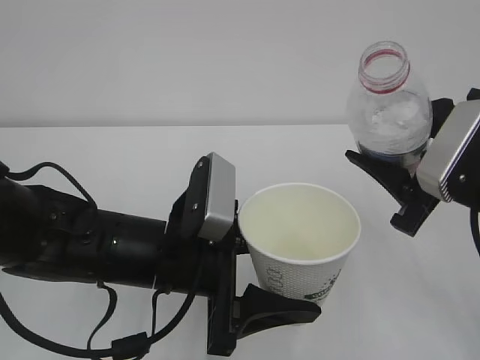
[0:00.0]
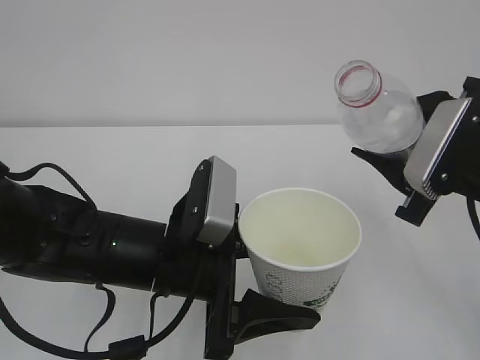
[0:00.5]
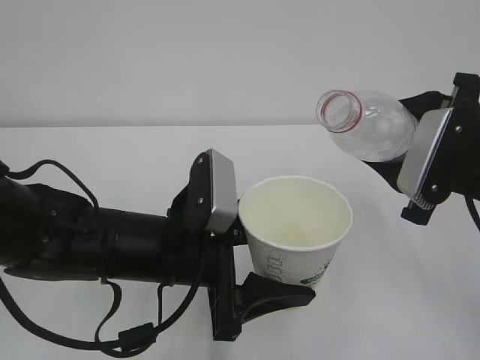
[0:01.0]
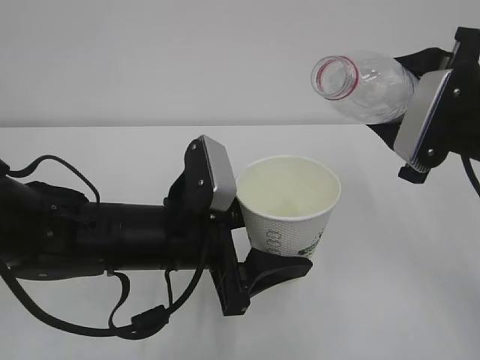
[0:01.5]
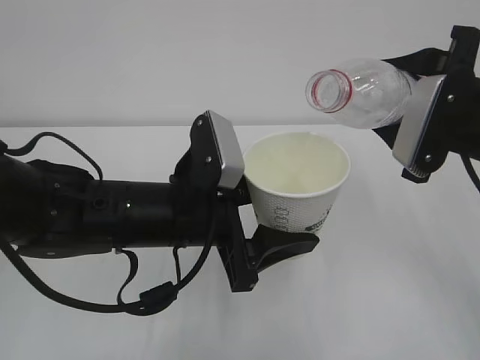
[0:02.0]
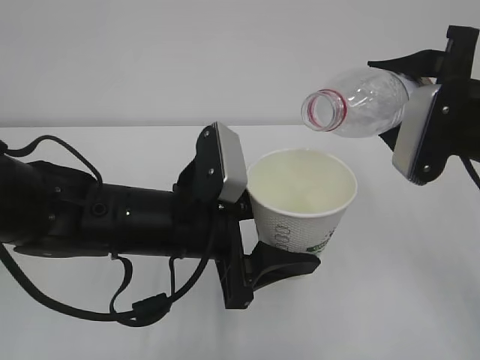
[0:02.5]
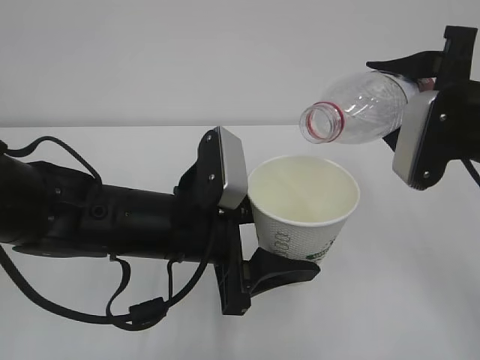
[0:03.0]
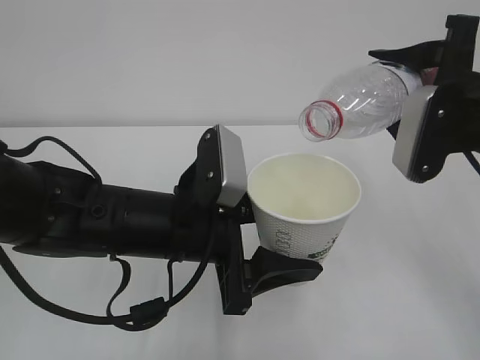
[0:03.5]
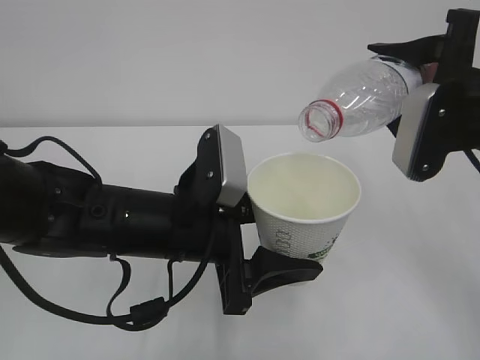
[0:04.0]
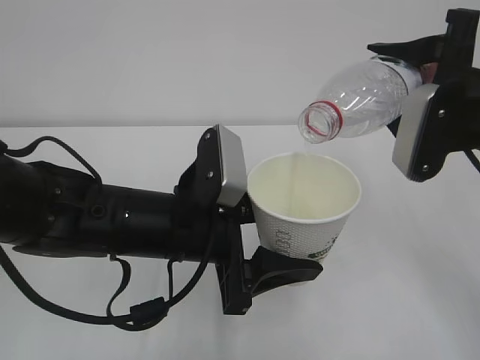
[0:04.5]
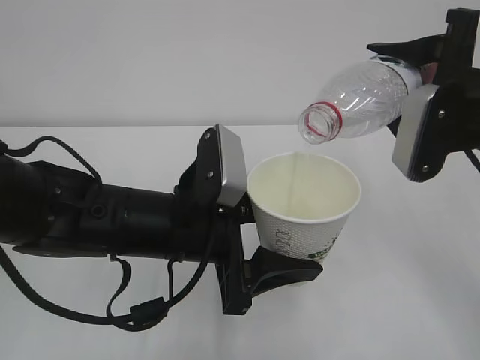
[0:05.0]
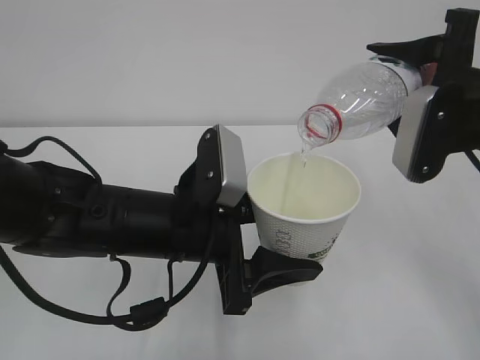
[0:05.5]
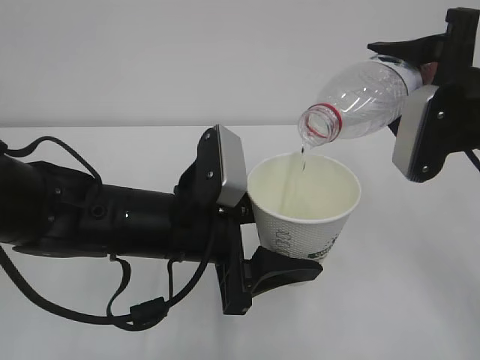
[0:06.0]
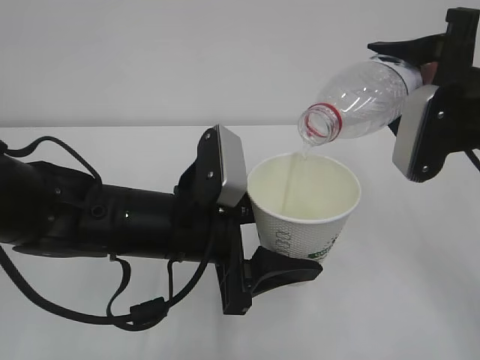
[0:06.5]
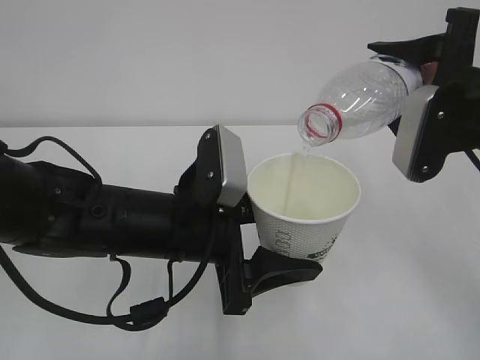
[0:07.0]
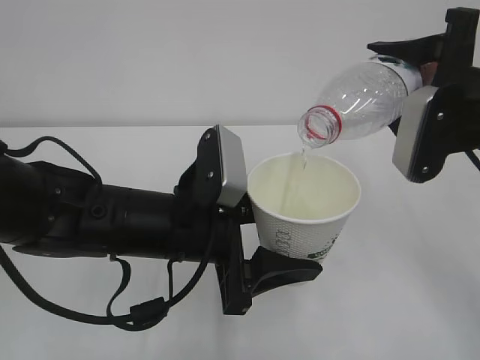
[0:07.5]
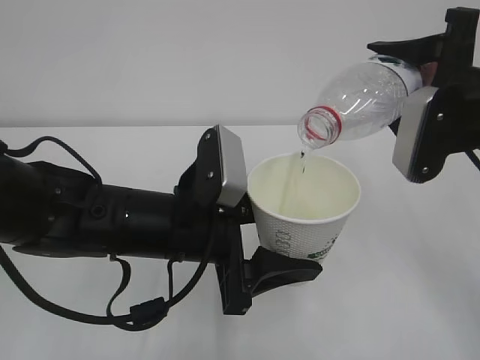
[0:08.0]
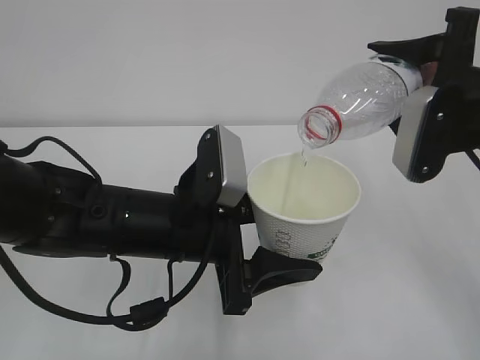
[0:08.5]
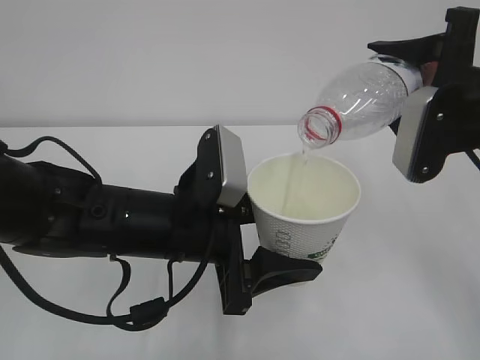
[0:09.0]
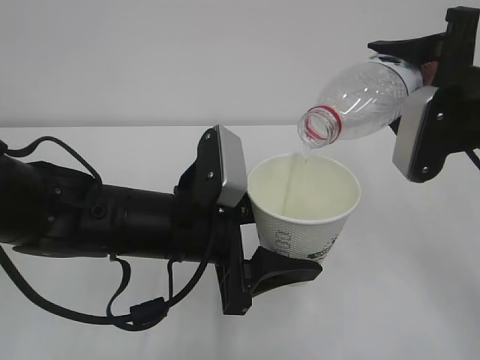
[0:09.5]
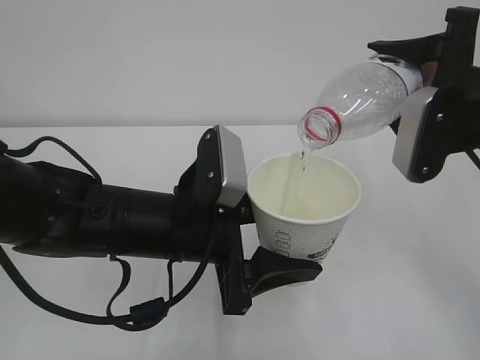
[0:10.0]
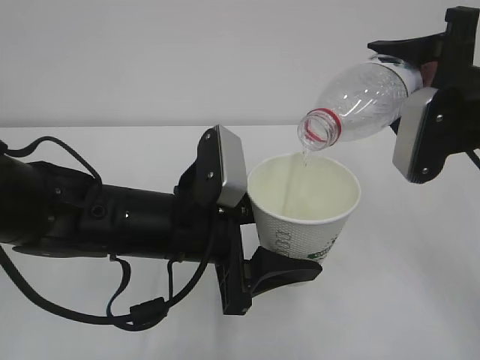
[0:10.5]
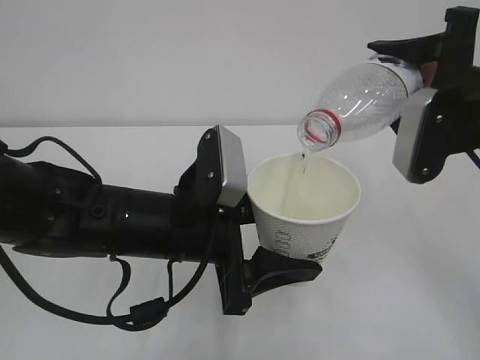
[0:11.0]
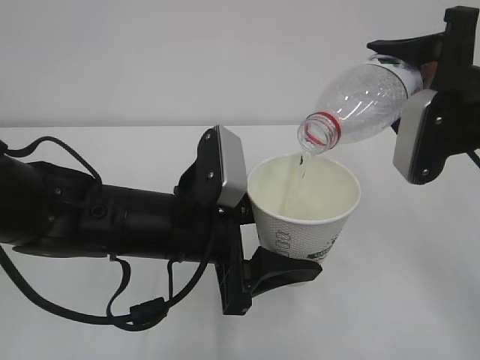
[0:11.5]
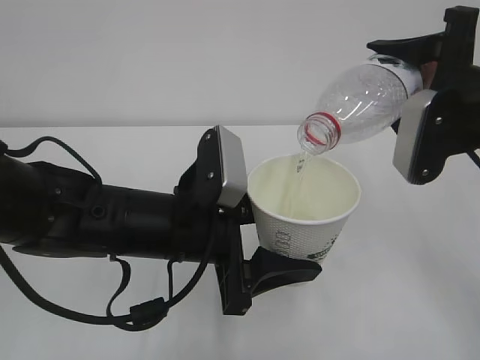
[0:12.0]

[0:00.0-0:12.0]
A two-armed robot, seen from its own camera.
0:00.0 to 0:02.0: The right gripper changes place by approximately 5 cm.
0:02.0 to 0:04.0: The grippers move only a little.
0:04.0 to 0:10.0: Both grippers stay put.
0:10.0 to 0:12.0: Both grippers stay put.

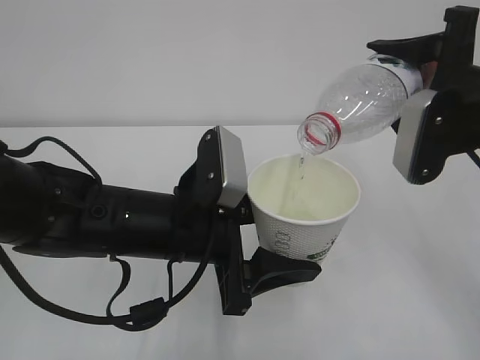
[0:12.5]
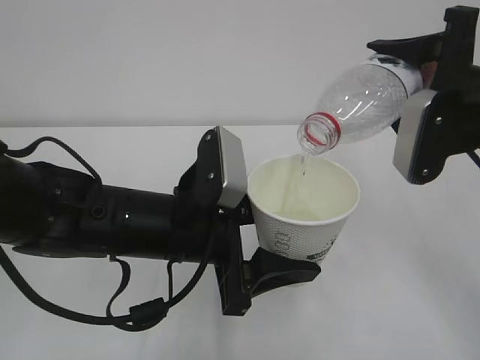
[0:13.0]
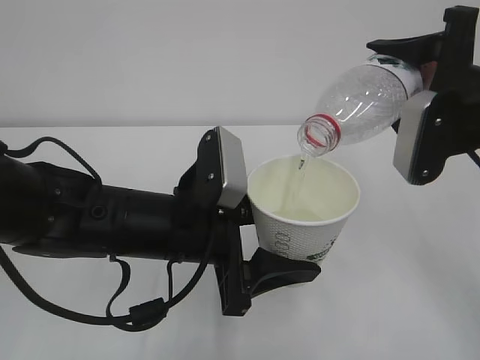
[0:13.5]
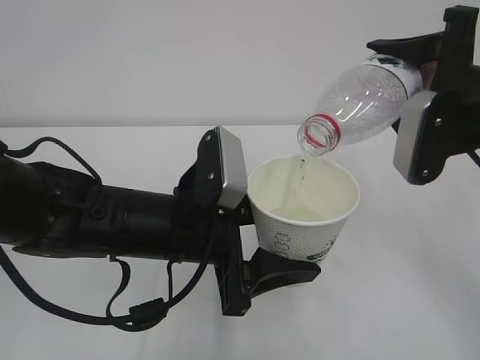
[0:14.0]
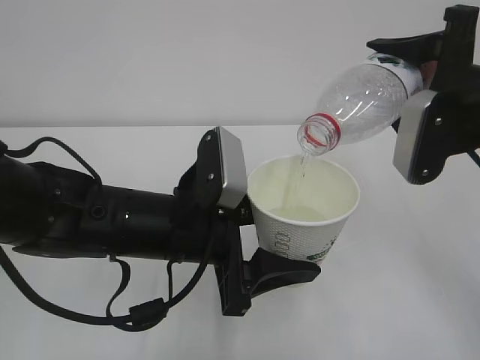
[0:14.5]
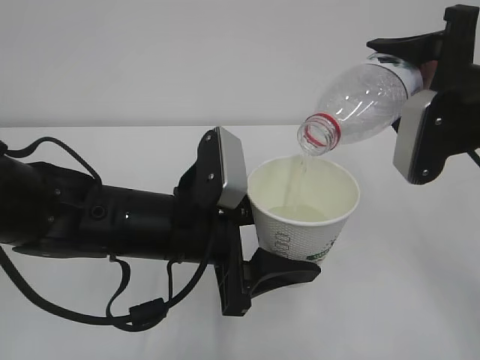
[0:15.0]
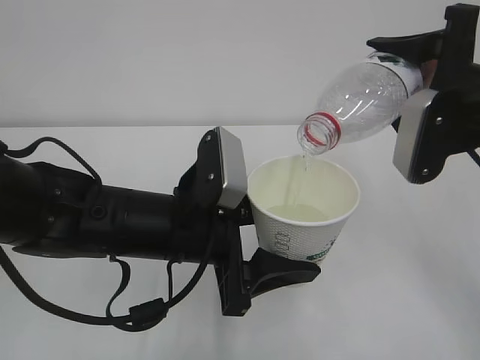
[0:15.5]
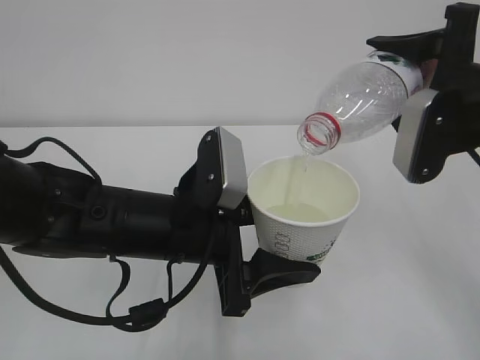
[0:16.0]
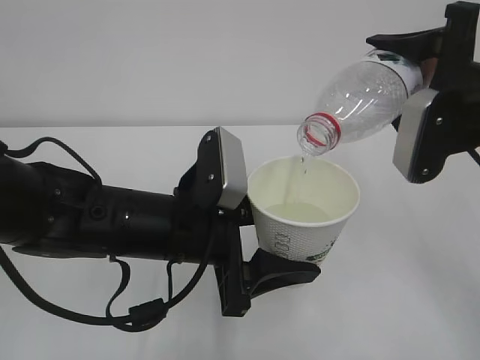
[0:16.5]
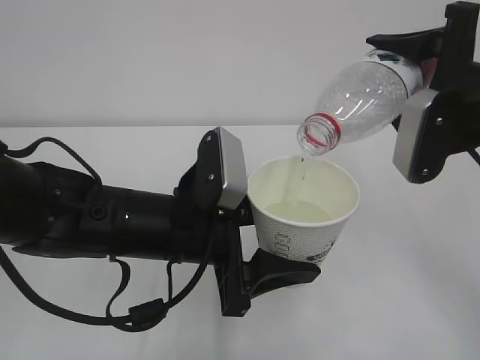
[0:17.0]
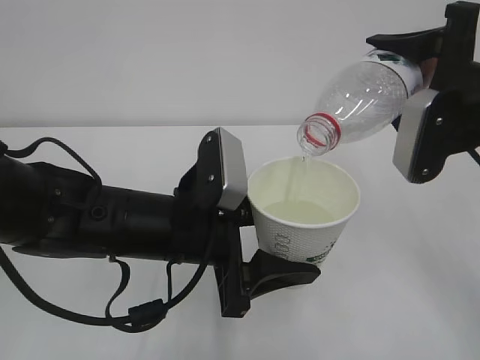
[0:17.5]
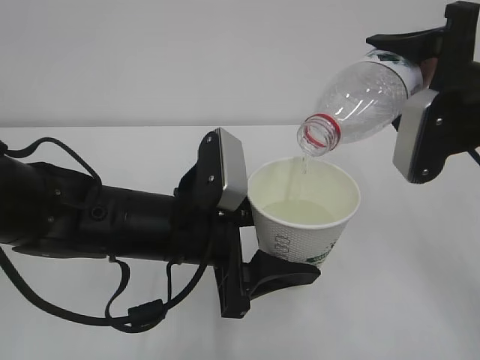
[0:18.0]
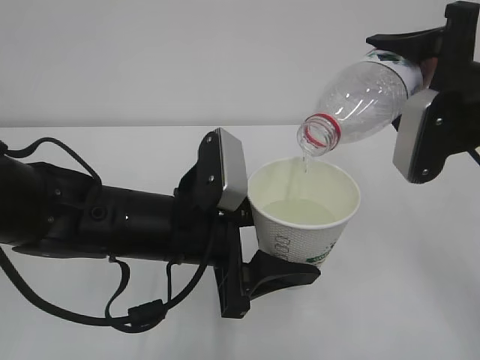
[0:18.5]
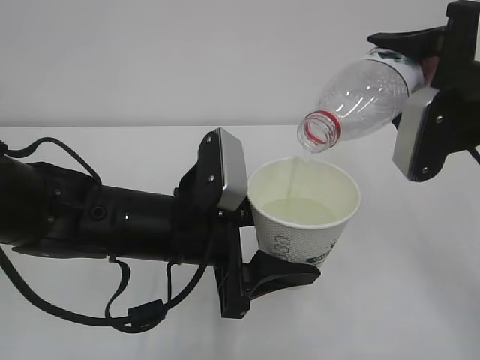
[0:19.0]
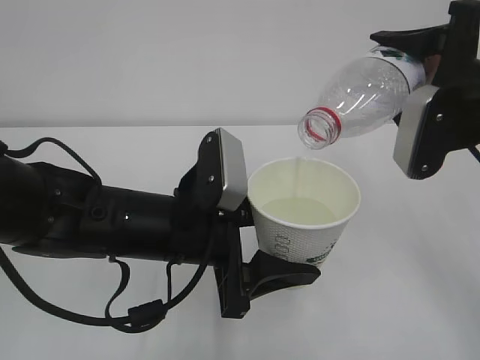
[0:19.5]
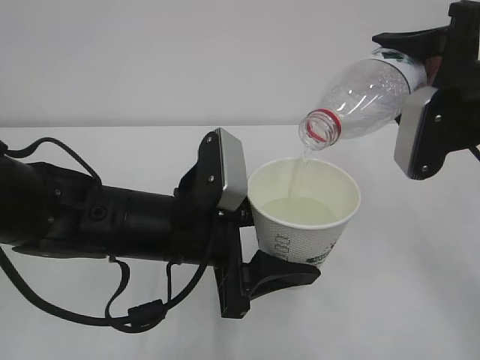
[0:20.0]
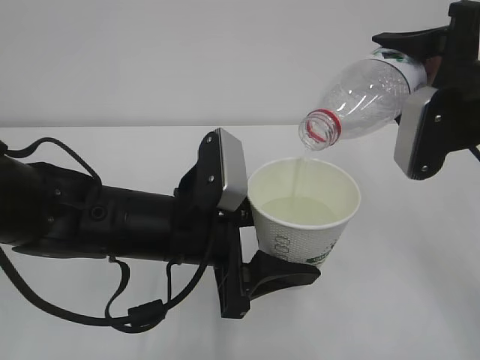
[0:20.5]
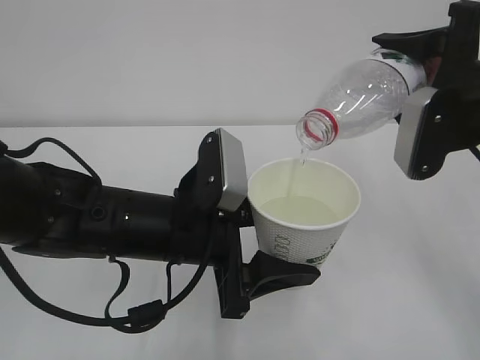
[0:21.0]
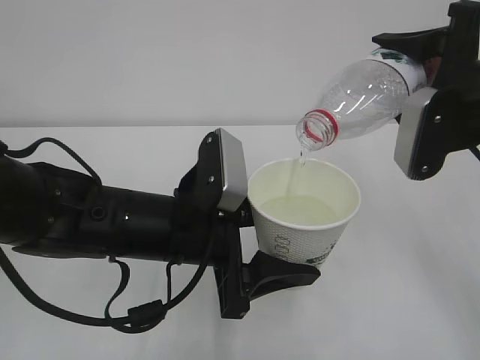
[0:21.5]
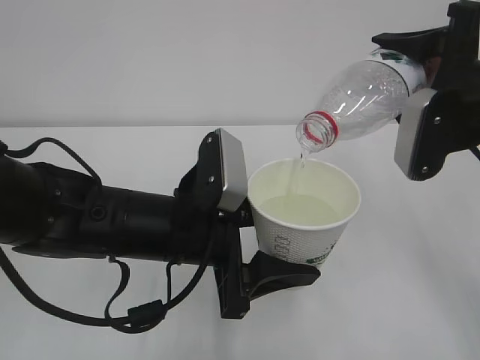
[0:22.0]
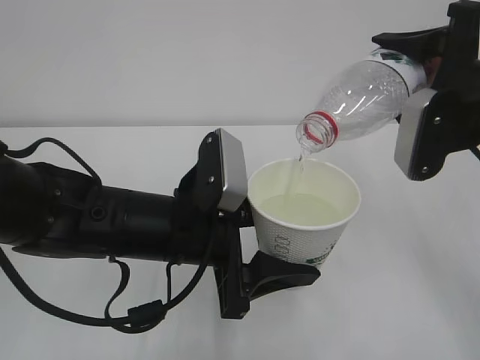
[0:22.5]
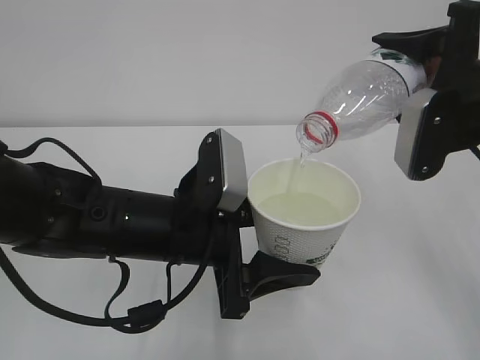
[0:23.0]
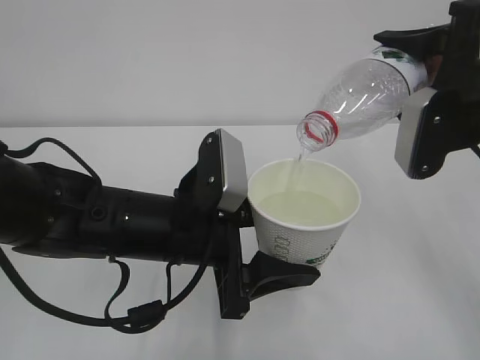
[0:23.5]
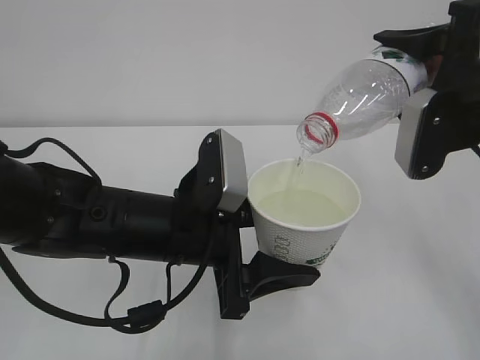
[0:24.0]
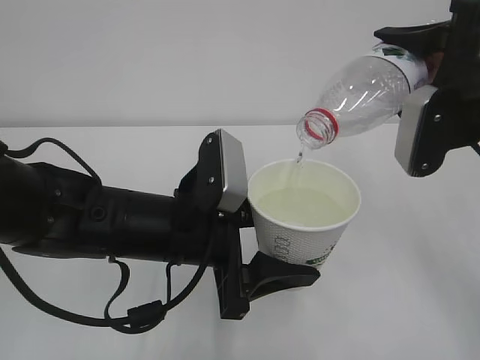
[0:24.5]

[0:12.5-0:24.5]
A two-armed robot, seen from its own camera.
0:12.5 to 0:22.5: Neither gripper changes place.
0:22.5 to 0:24.5: Both grippers stay about where they are.

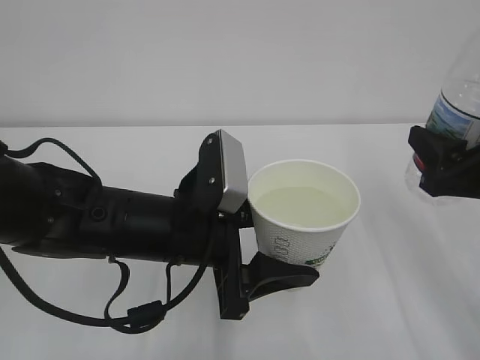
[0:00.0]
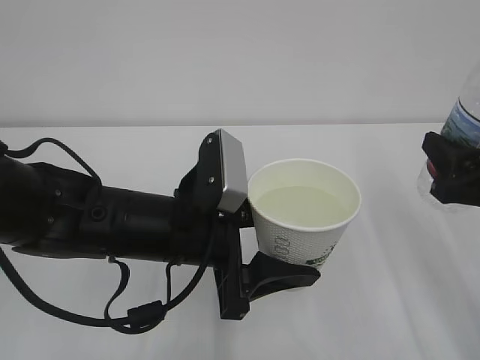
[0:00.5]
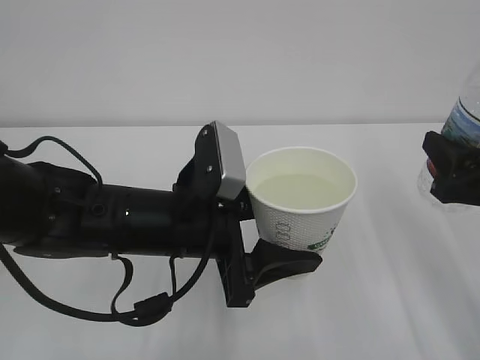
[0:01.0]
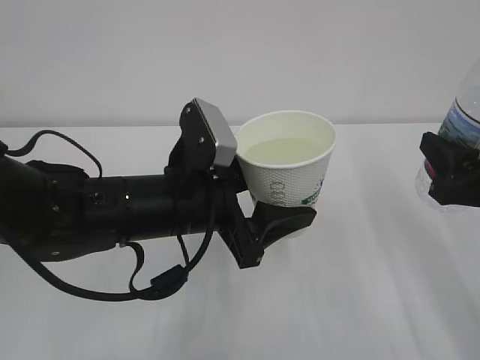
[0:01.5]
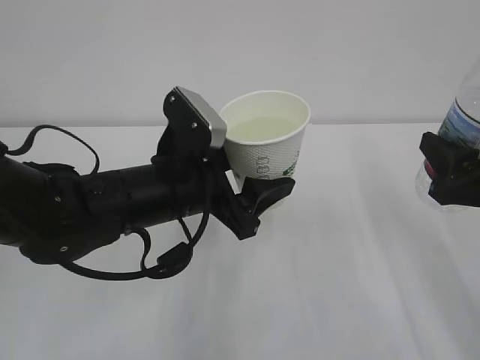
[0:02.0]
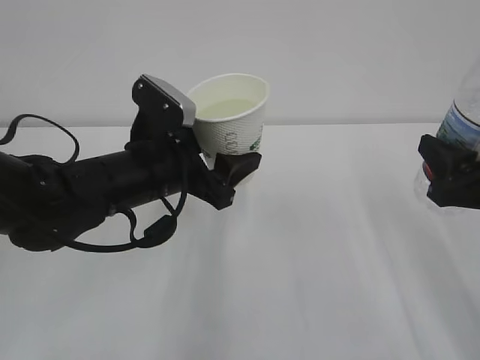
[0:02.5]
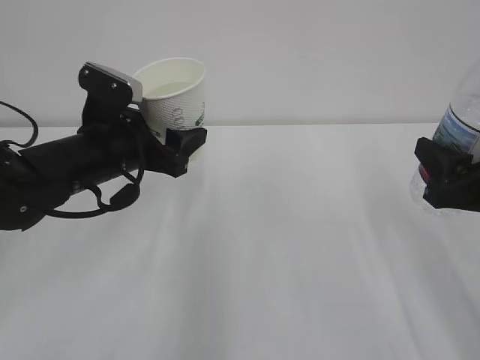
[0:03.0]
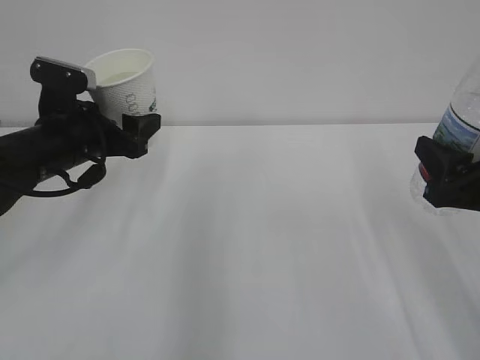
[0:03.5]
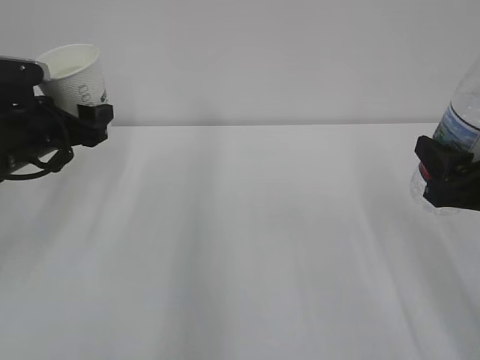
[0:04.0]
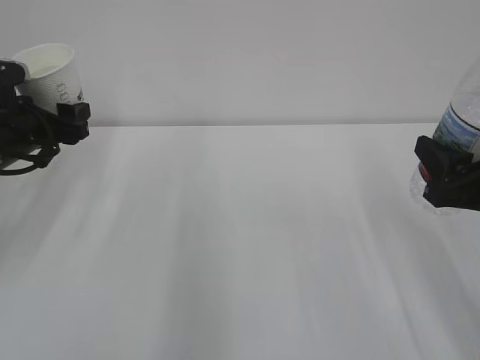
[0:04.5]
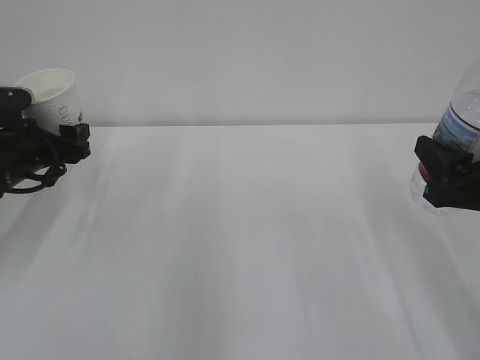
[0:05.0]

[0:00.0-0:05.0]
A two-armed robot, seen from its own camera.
0:00.0 to 0:02.5: The left gripper moves forward, roughly 5 cm.
0:02.5 to 0:05.0: The left gripper travels to the left and forward by approximately 20 cm.
